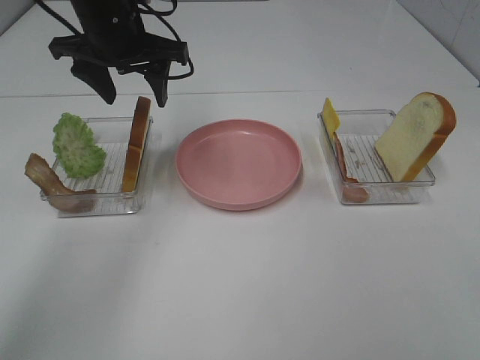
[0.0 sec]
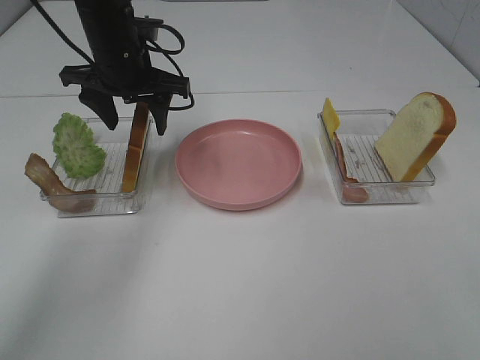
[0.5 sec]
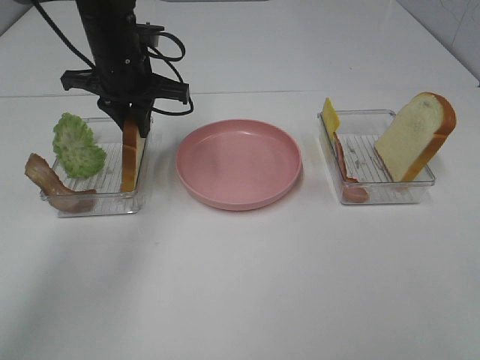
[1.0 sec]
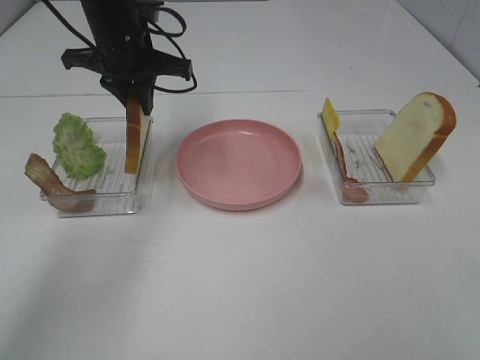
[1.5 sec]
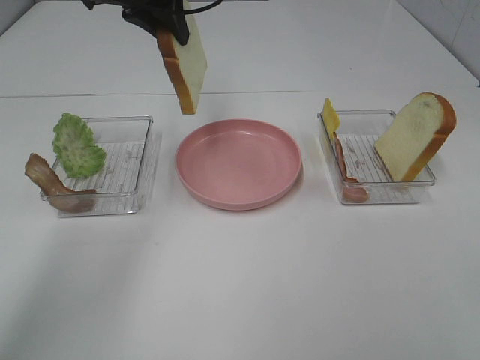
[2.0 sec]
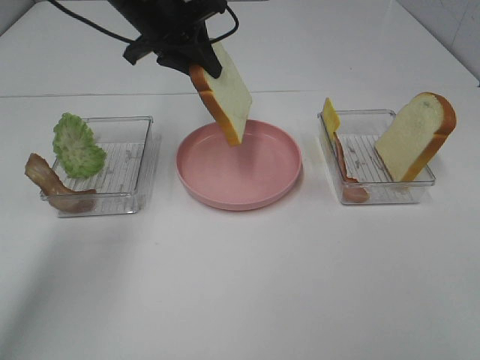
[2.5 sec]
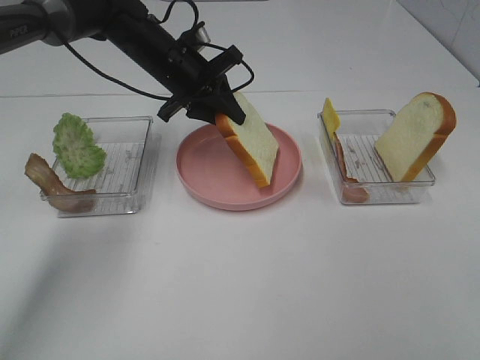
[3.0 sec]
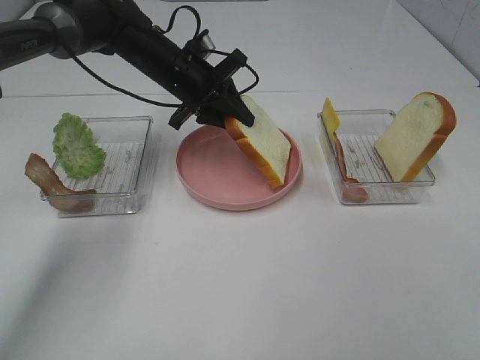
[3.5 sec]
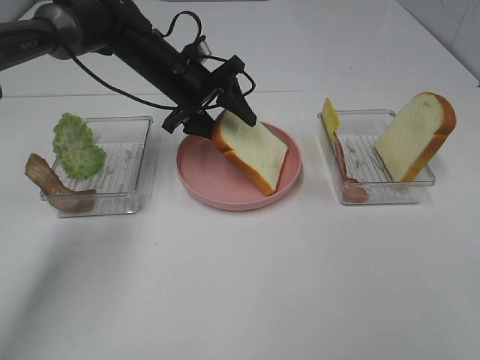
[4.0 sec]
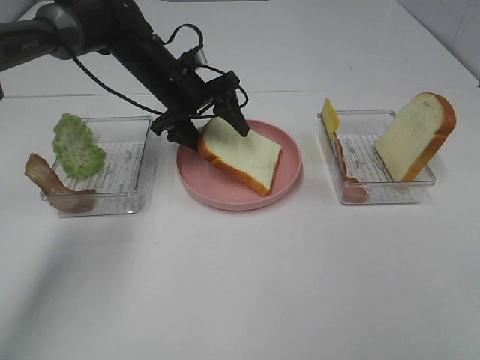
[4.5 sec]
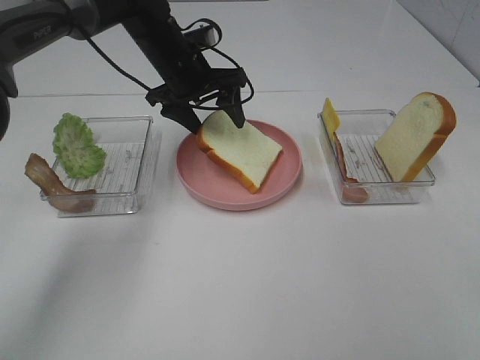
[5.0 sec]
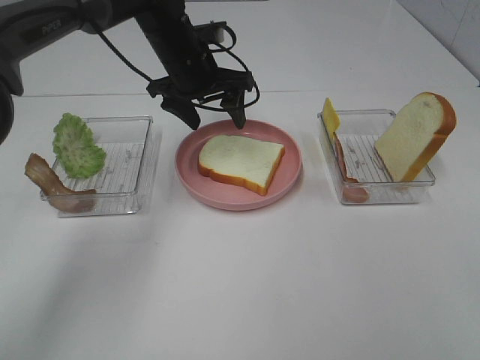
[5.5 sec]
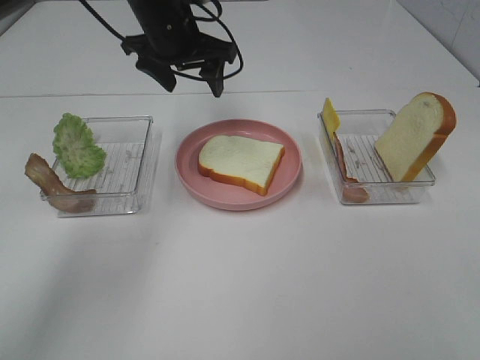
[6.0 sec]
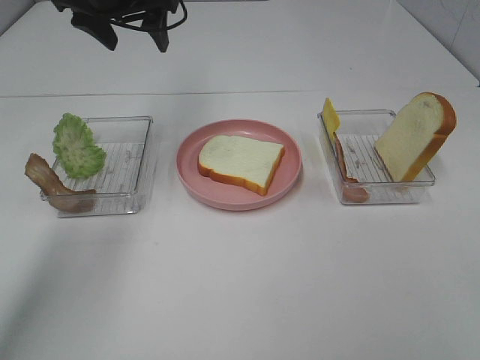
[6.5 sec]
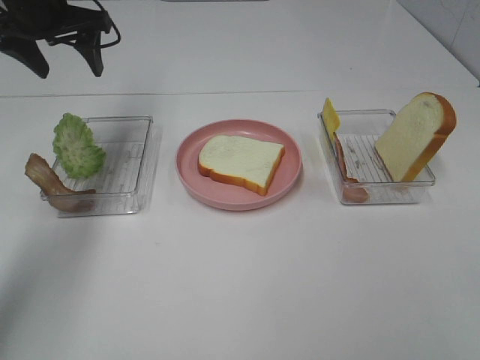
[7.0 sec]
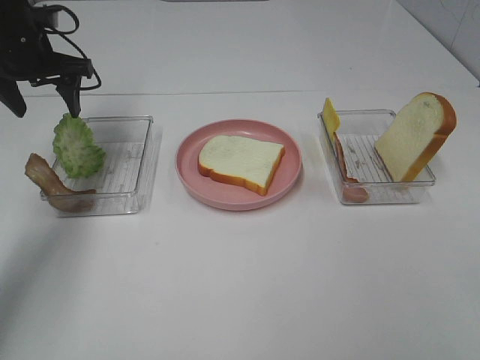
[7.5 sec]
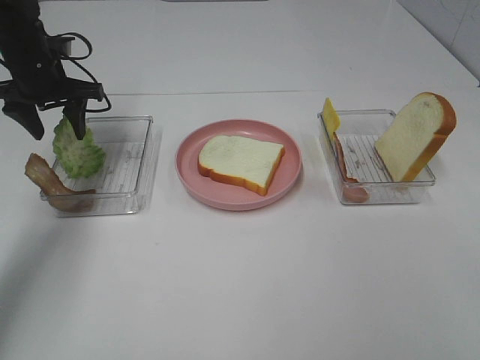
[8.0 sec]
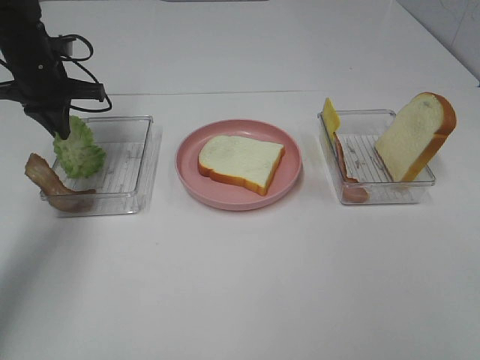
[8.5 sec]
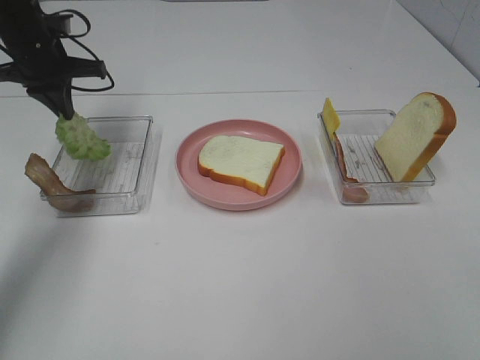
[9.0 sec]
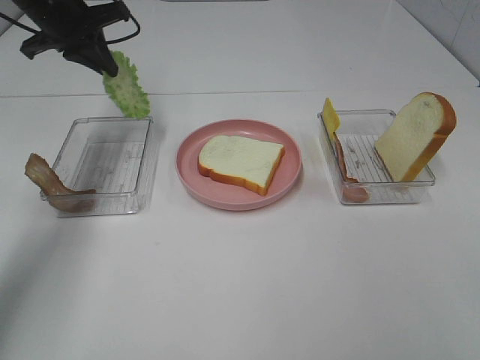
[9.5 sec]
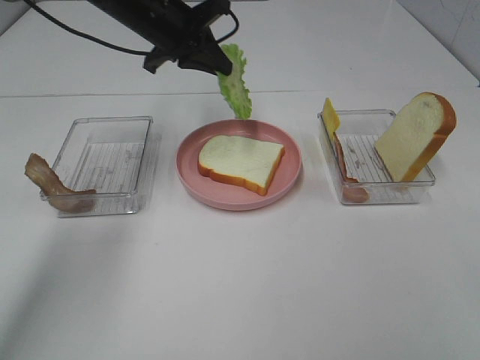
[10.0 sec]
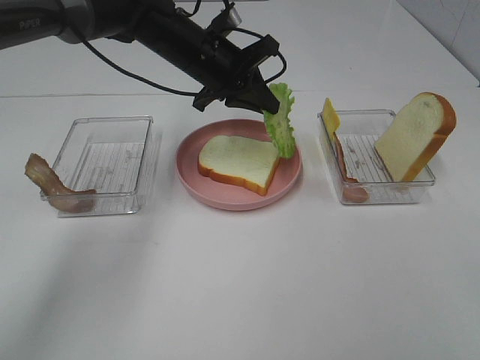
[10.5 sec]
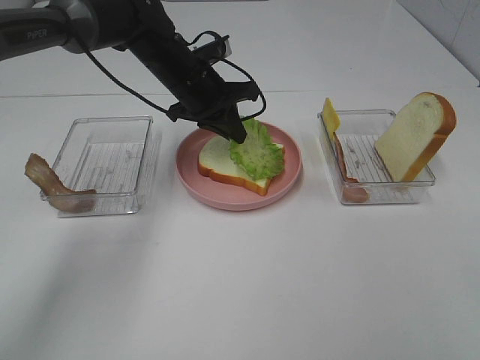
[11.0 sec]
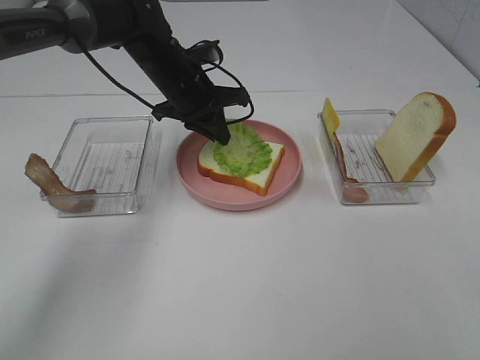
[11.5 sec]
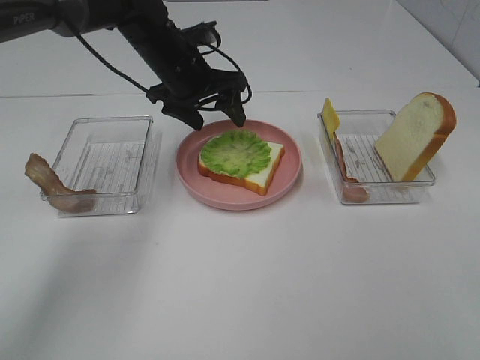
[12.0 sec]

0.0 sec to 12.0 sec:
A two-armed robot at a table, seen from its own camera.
Task of the whole recording: Make sandwiches.
Step, 1.5 sec to 5.5 sec: Left hand:place the bread slice on the plate.
Step, 6.0 sec to 8.5 sec: Left hand:grab the lettuce slice.
0.0 sec to 2.0 sec: The left gripper heads upward, covering roughly 5 cm, and closes up.
2.0 sec to 4.0 sec: The left gripper travels downward by roughly 15 cm, and opens up.
4.0 sec to 6.0 sec: The left gripper travels upward by some 10 cm.
6.0 sec to 8.0 sec: The left gripper is displaced to the left by approximately 20 cm.
8.0 sec to 10.0 sec: The left gripper moves to the right, roughly 15 cm, and closes.
10.0 sec to 12.0 sec: The left gripper is displaced downward by roughly 5 cm, and opens.

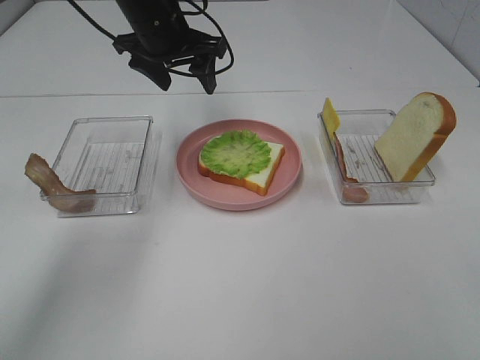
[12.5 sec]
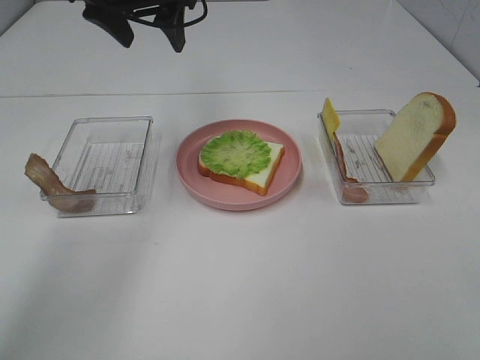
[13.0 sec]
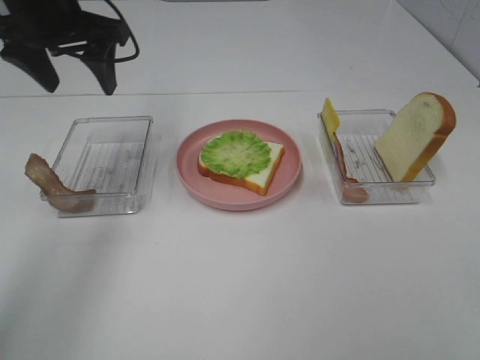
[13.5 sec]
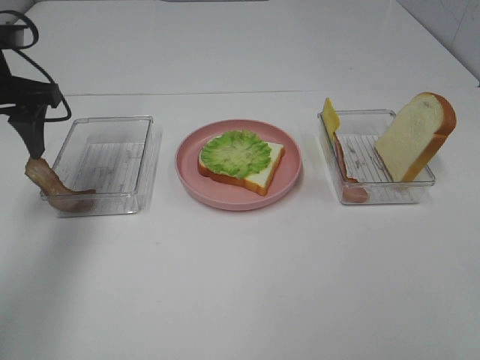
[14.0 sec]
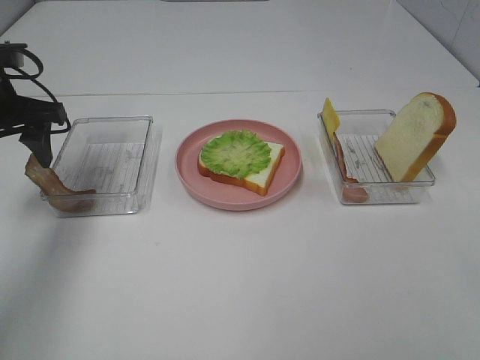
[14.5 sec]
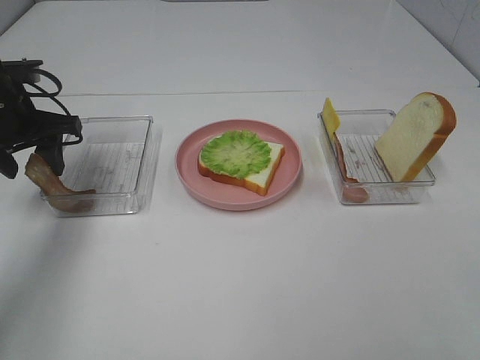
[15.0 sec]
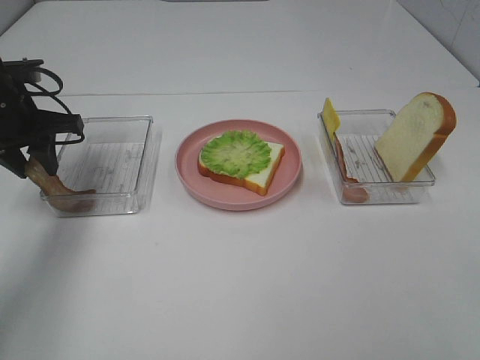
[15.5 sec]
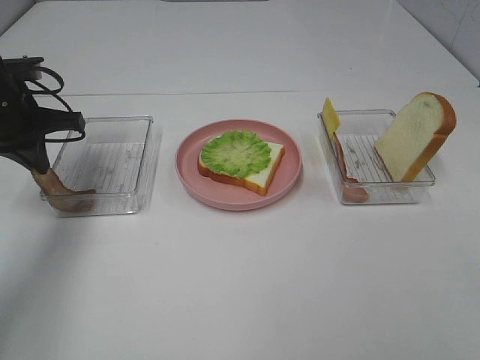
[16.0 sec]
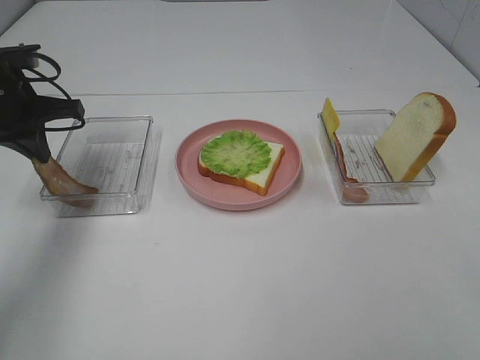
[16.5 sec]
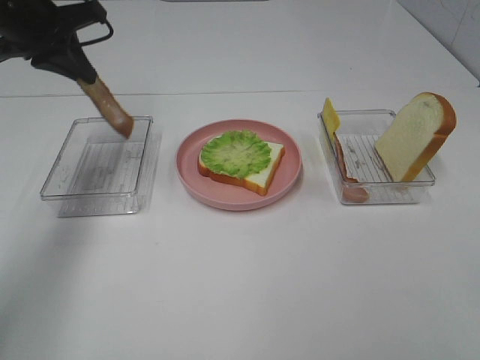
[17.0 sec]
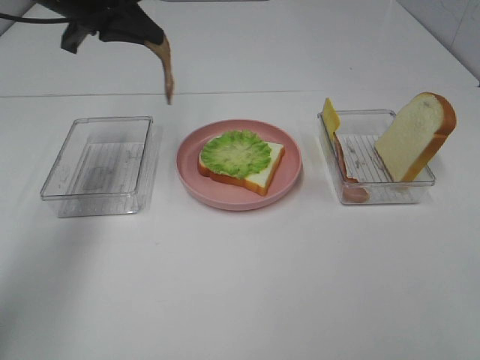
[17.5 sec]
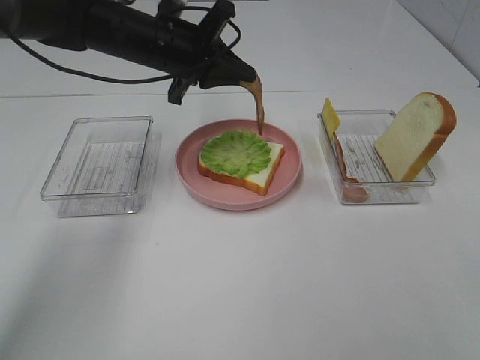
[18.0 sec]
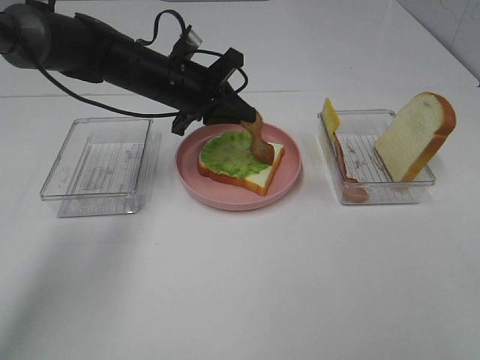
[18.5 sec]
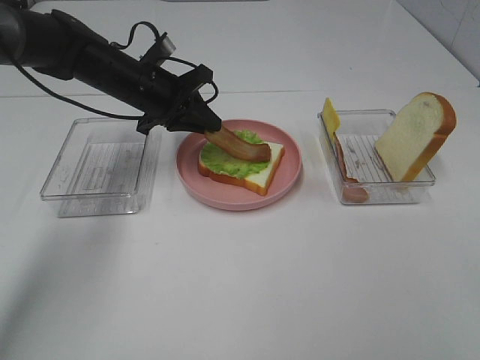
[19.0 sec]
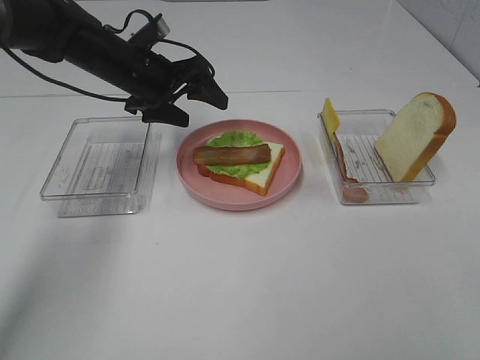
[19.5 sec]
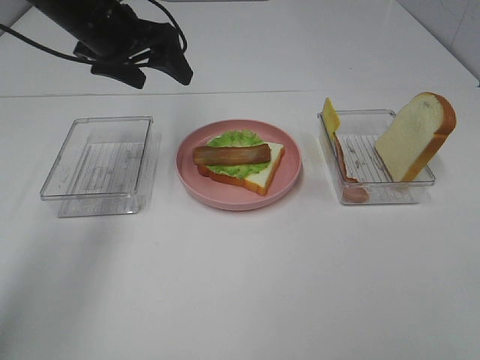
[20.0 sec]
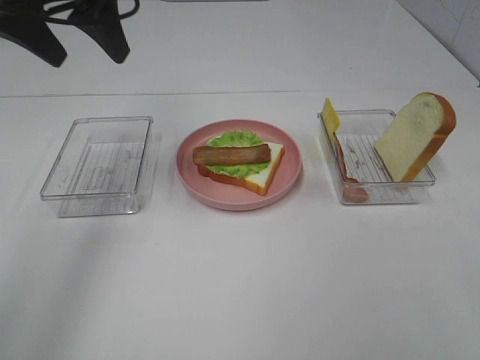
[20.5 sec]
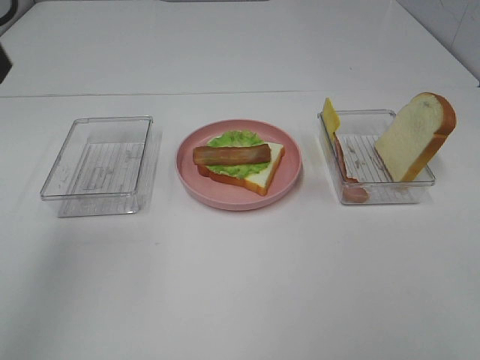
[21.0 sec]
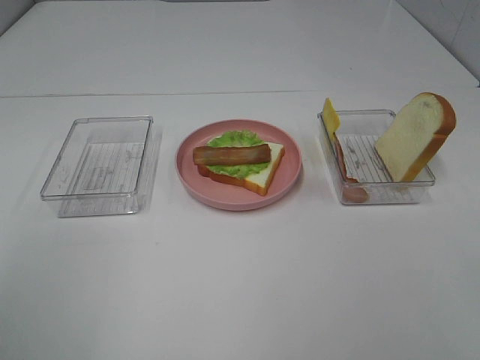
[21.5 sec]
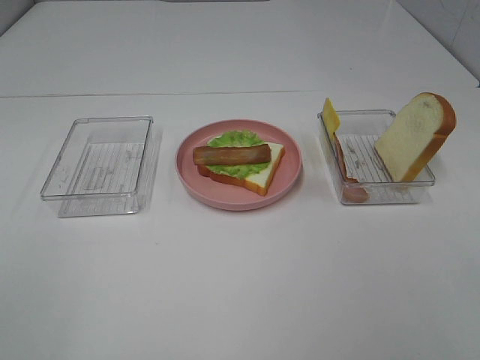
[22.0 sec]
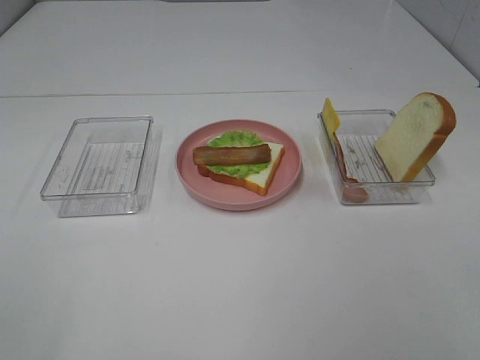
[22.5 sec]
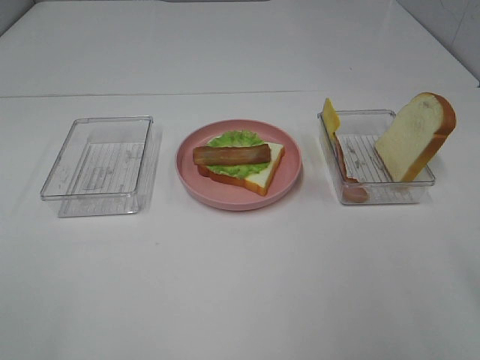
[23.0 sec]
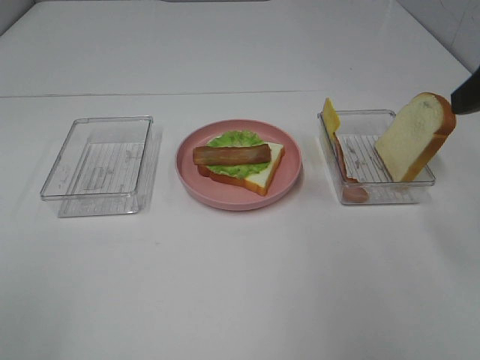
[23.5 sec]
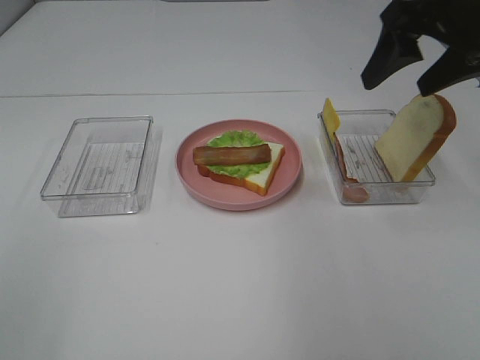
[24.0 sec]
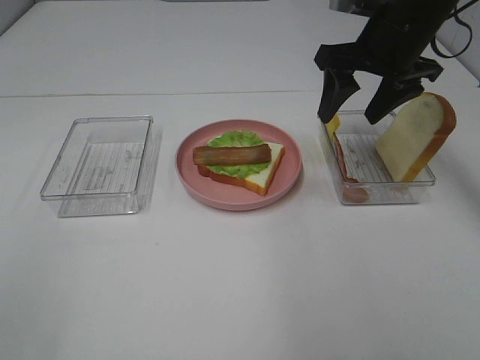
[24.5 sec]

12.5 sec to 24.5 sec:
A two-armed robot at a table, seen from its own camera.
Task of the whole recording: Make sandwiches.
Step, 12.5 sec to 16.0 sec: Left hand:grab the bacon.
Step, 16.5 sec to 19.5 sec: Left hand:place bacon on lettuce slice.
12.5 sec to 14.5 sec: The left gripper heads to the left and backward, covering approximately 20 cm.
14.5 sec to 16.5 sec: The left gripper closes up.
16.5 sec to 18.5 sec: The left gripper heads to the right, covering some 15 cm.
18.5 sec to 20.5 sec: The left gripper moves upward, to the left and backward, about 20 cm, and opens up.
20.5 sec to 22.5 sec: The left gripper shifts approximately 35 cm backward.
22.5 sec to 24.5 sec: The right gripper goes about 40 cm forward.

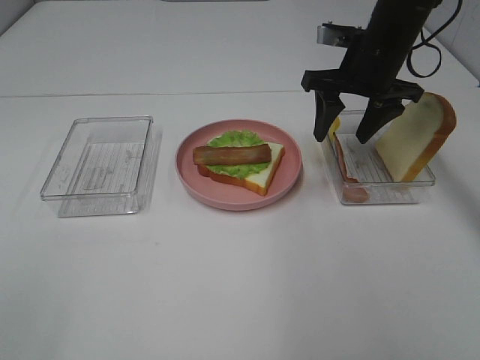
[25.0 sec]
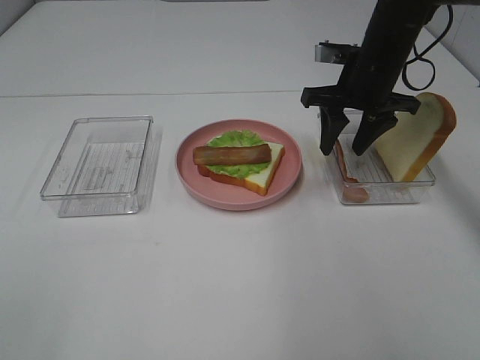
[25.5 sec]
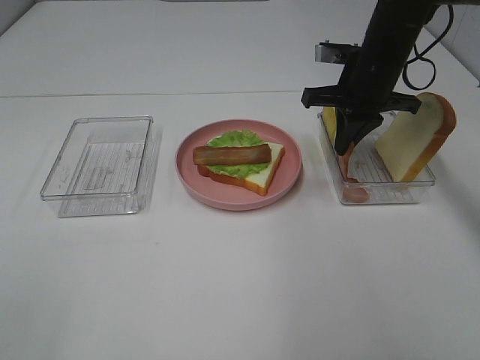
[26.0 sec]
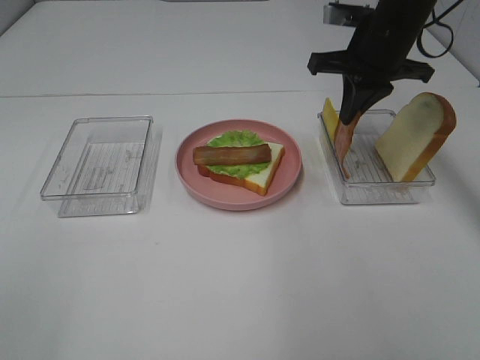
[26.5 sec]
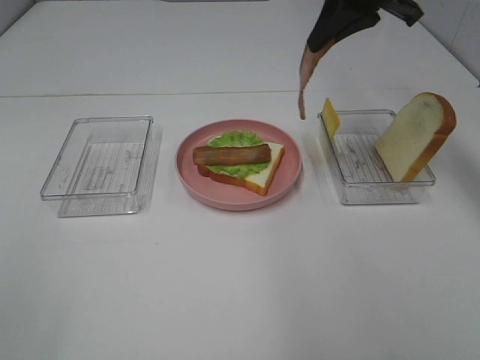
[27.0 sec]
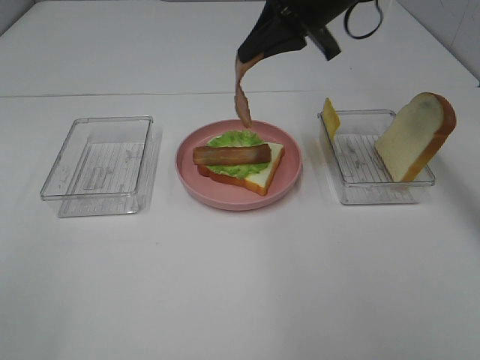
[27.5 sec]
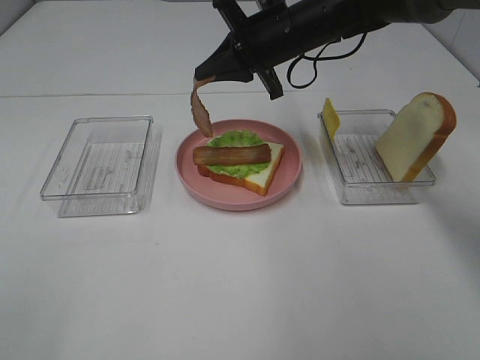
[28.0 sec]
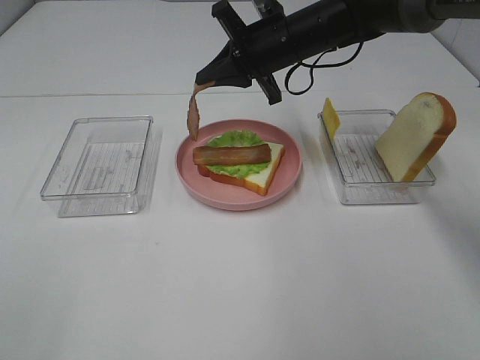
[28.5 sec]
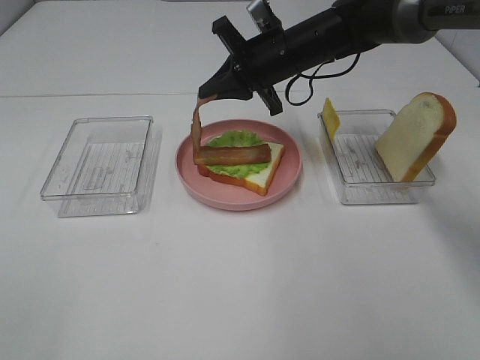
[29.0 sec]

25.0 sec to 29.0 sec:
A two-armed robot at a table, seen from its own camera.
Task of the whole recording: Make sandwiches.
25.0 sec to 27.0 sec: The right gripper heads upward, covering some 10 cm, and closes its fingers.
27.0 sec to 29.0 sec: The right gripper goes approximately 15 cm downward and to the left.
